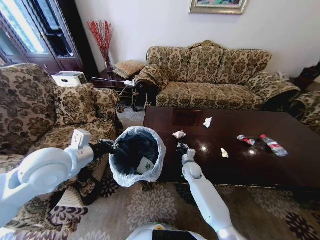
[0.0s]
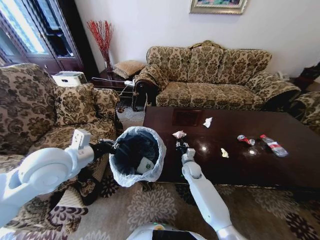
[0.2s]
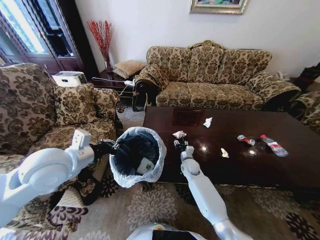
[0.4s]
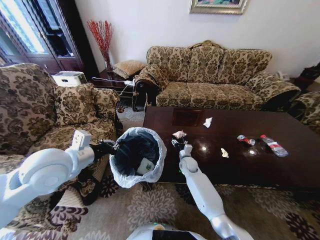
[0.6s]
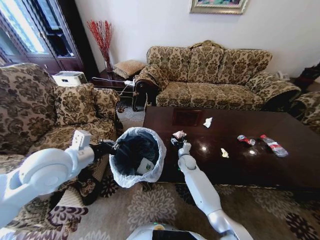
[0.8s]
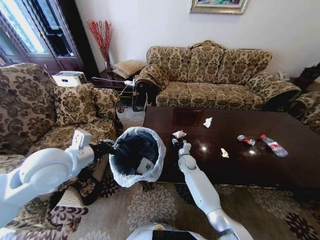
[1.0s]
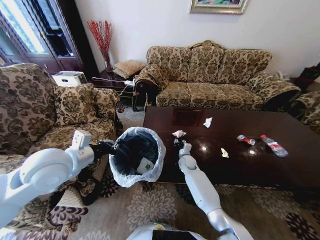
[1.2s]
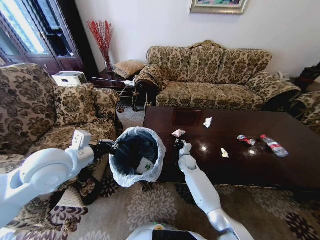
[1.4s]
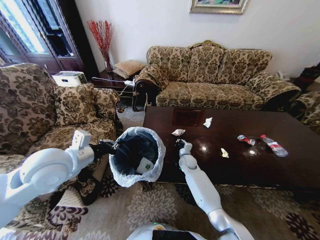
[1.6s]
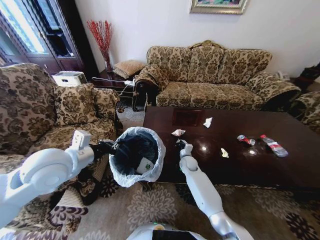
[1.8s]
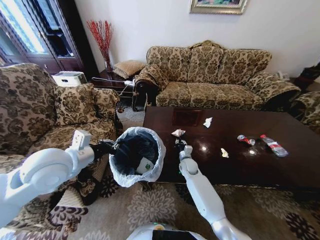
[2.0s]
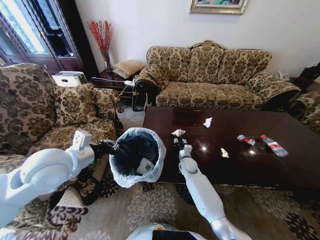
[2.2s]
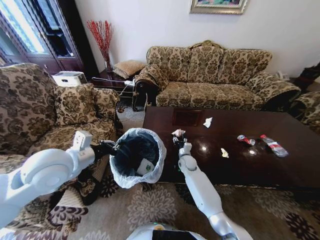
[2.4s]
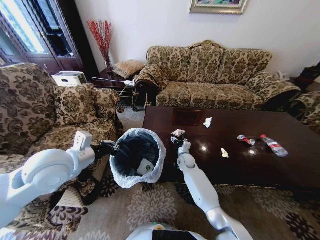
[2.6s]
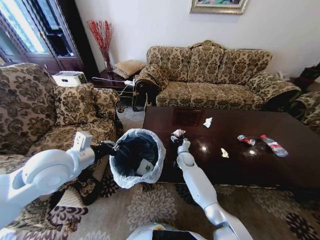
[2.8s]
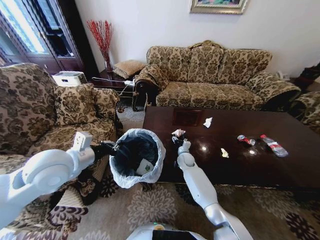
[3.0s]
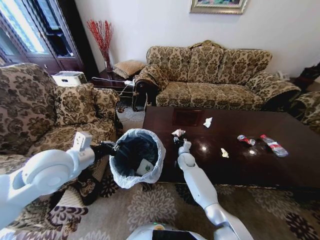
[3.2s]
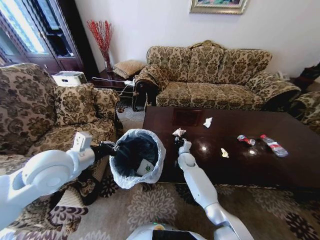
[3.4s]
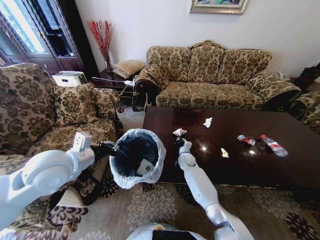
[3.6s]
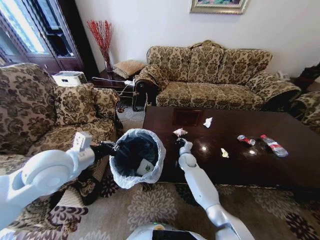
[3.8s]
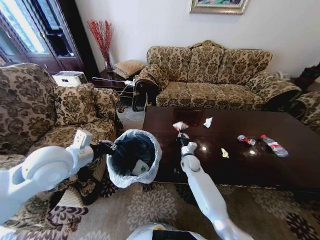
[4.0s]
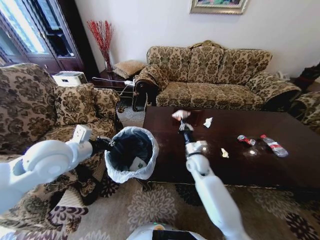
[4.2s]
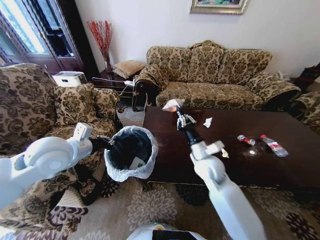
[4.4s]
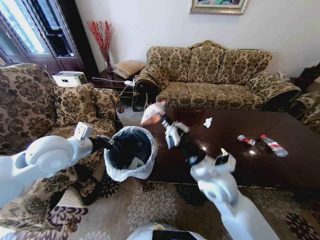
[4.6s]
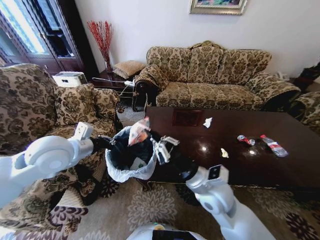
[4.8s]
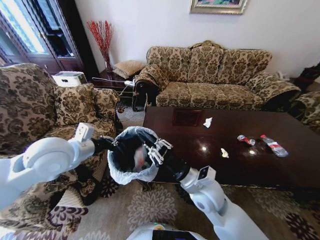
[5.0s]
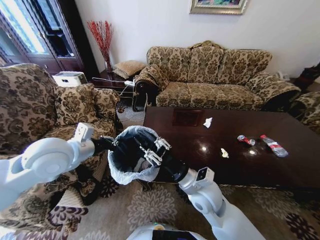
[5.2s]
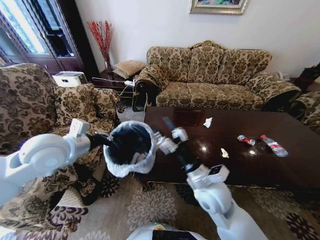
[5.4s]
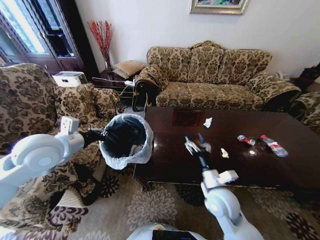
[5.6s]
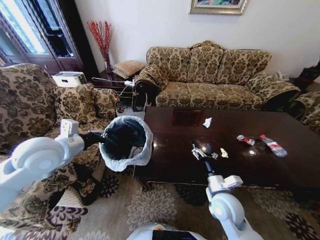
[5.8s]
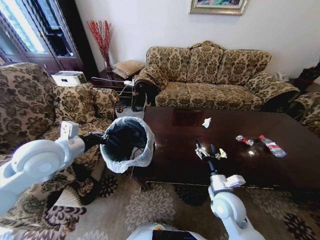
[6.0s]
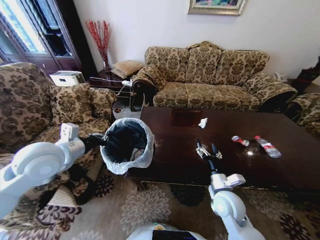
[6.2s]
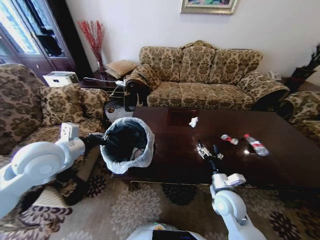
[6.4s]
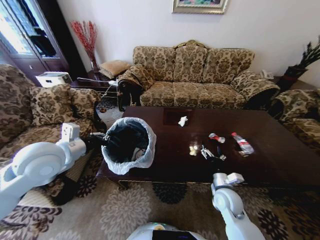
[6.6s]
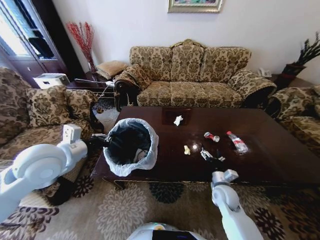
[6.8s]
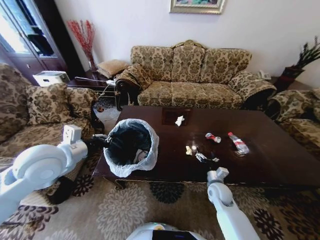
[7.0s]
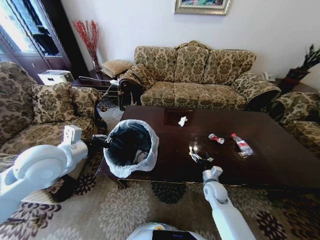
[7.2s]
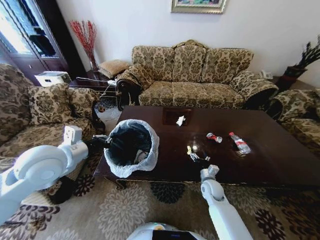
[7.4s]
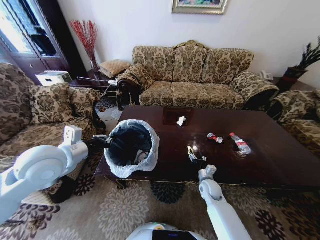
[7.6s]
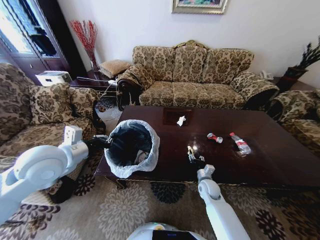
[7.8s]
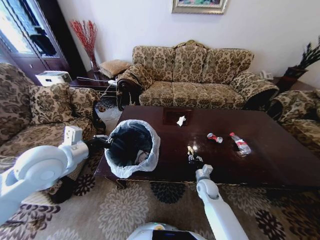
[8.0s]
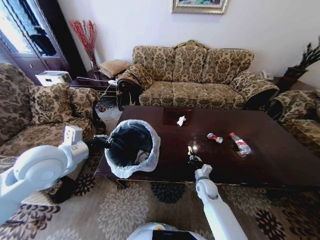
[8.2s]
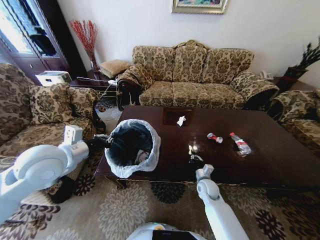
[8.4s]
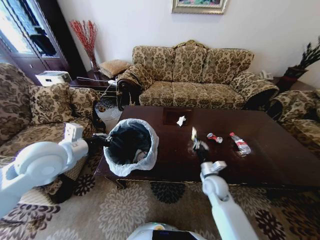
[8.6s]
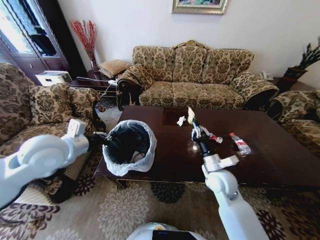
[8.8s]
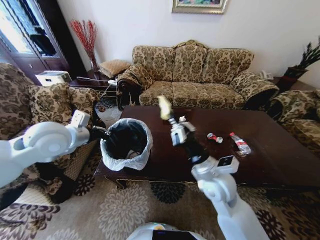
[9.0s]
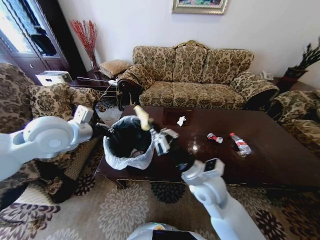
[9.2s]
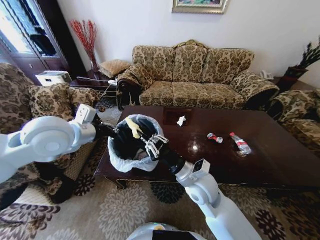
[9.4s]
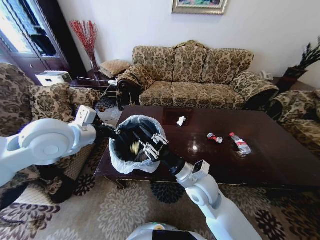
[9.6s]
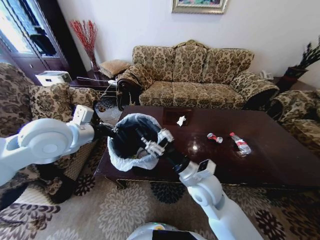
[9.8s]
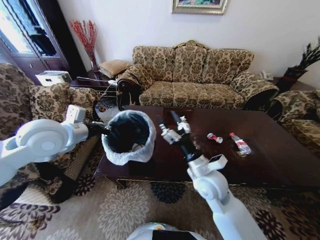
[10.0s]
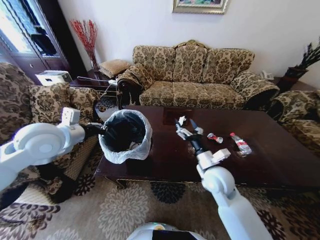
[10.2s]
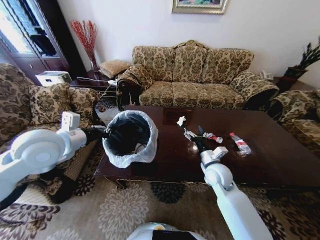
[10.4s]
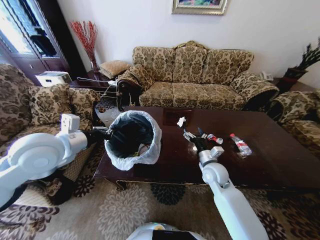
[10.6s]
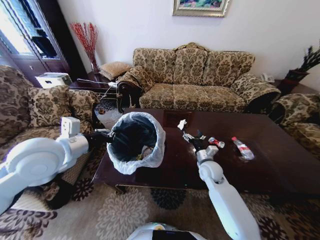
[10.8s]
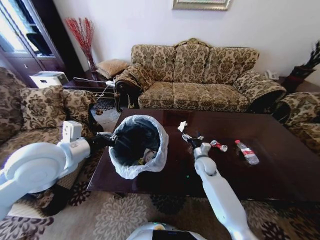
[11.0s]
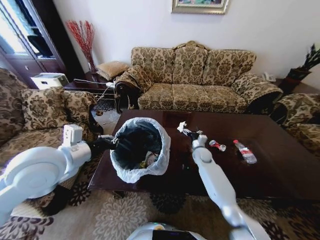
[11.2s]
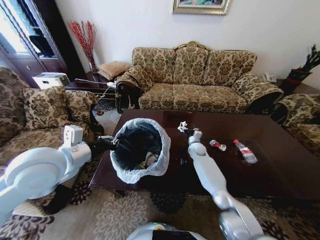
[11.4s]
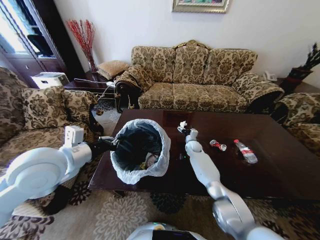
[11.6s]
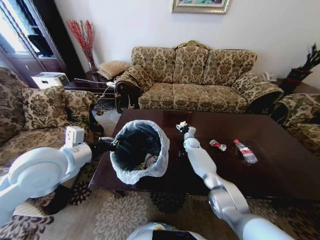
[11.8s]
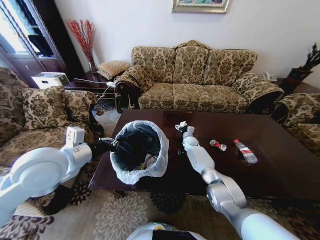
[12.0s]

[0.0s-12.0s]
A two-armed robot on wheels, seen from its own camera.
Task of the whole recording: Move to the front of the table and place the trash on the table into the trash bin.
0.0s to 1.6s: The right gripper shifts by approximately 5 cm, and opens, then closes once more.
1.6s to 3.0s: The right gripper opens up.
3.0s to 4.4s: The right gripper travels upward and backward by approximately 25 cm, and closes up.
4.4s to 6.0s: The right gripper shifts roughly 15 cm downward, backward and to the right, and opens its fingers.
6.0s to 7.6s: The right gripper moves downward and forward, about 15 cm.
7.6s to 9.0s: The left gripper goes about 5 cm forward. The right gripper travels upward by roughly 25 cm, and closes.
9.0s to 10.4s: The right gripper is displaced downward, forward and to the right by roughly 10 cm, and opens up.
10.4s to 12.0s: The left gripper changes place by approximately 5 cm. The right gripper shifts approximately 30 cm forward and downward.

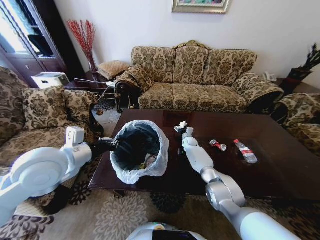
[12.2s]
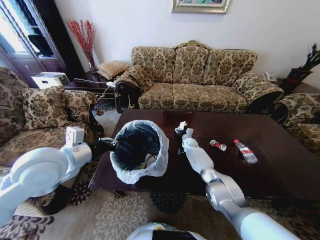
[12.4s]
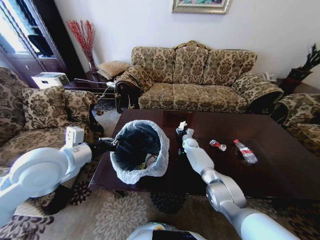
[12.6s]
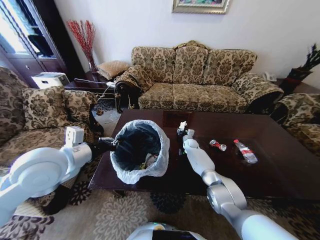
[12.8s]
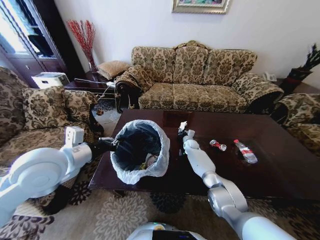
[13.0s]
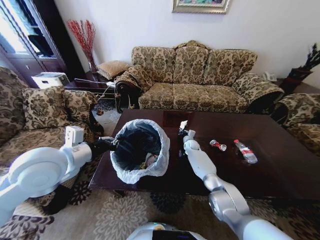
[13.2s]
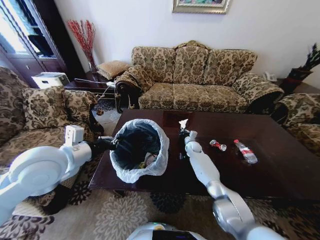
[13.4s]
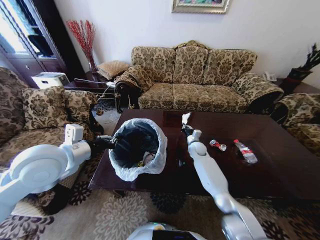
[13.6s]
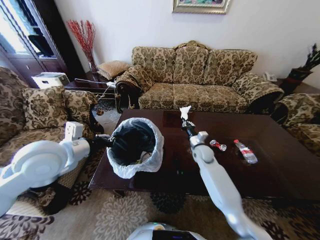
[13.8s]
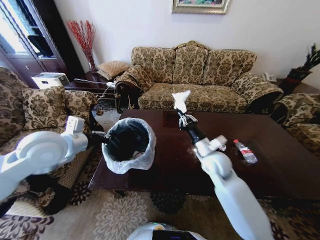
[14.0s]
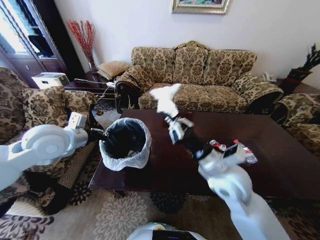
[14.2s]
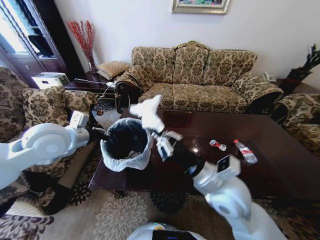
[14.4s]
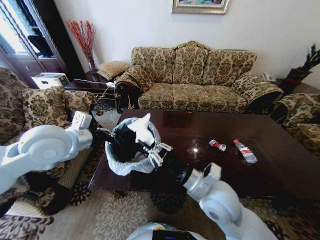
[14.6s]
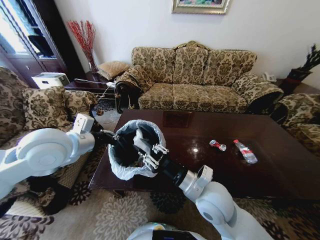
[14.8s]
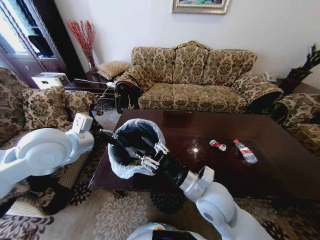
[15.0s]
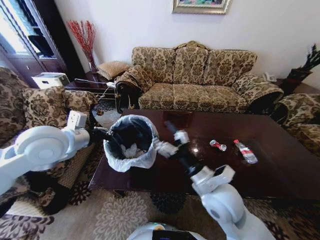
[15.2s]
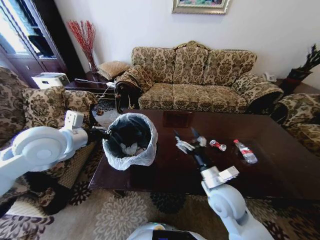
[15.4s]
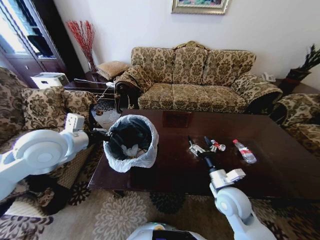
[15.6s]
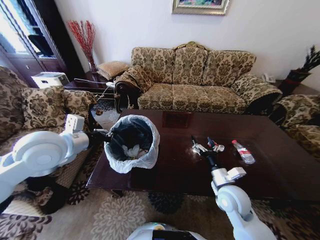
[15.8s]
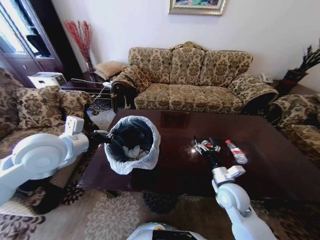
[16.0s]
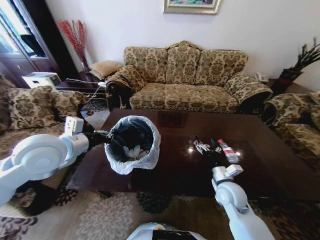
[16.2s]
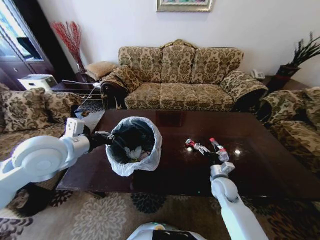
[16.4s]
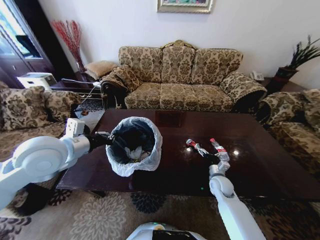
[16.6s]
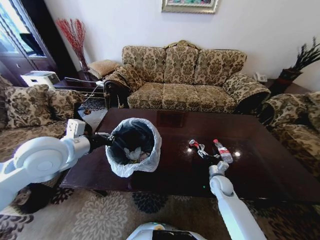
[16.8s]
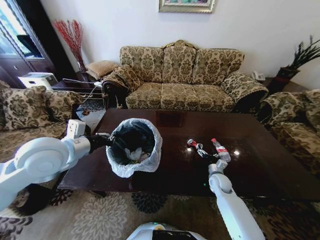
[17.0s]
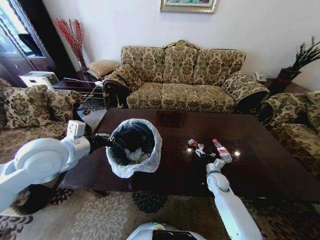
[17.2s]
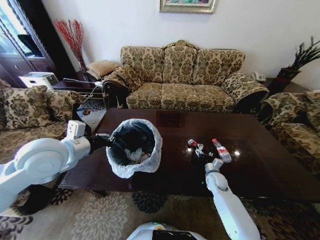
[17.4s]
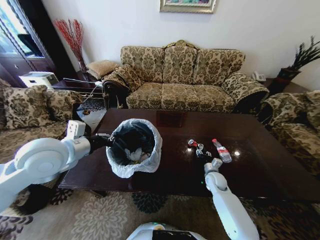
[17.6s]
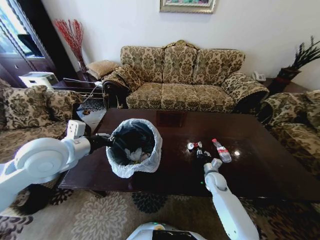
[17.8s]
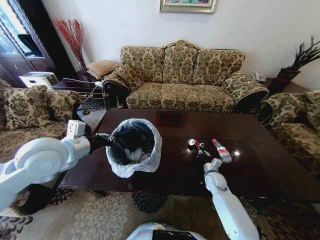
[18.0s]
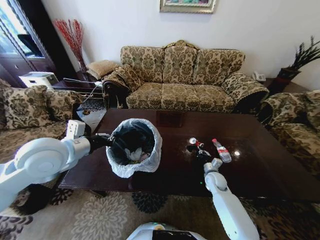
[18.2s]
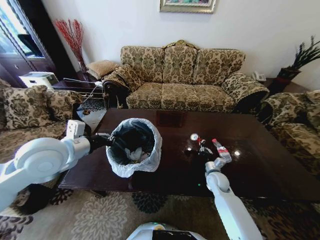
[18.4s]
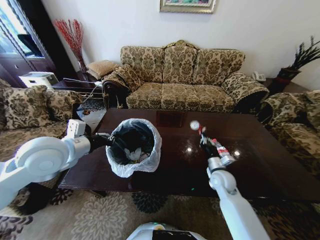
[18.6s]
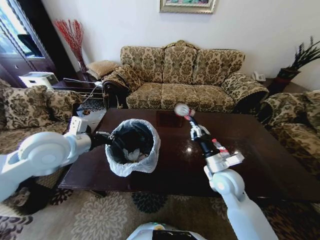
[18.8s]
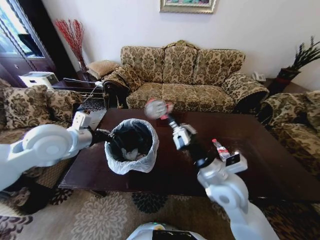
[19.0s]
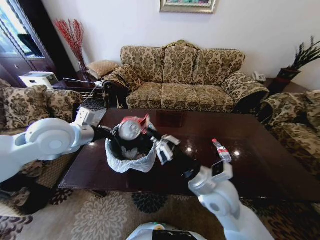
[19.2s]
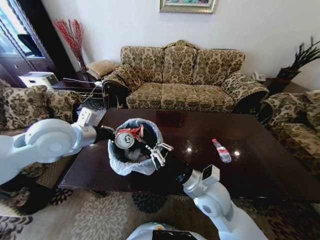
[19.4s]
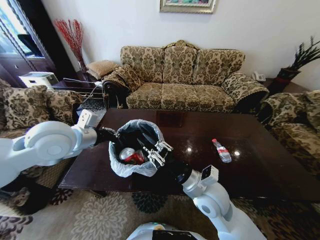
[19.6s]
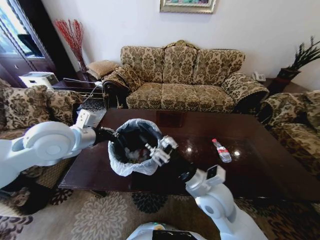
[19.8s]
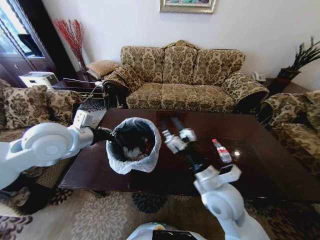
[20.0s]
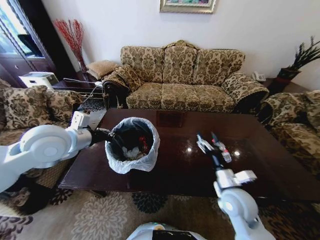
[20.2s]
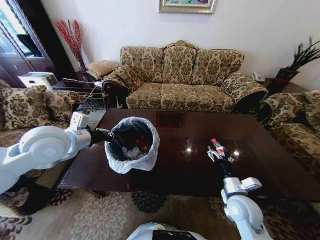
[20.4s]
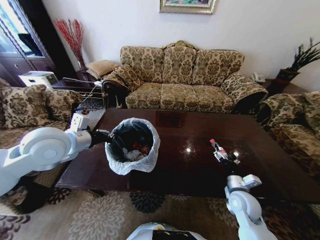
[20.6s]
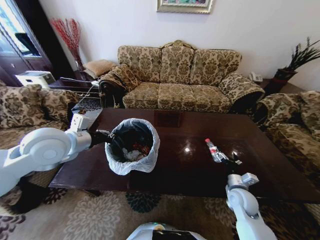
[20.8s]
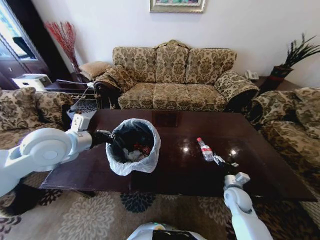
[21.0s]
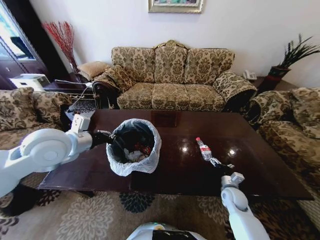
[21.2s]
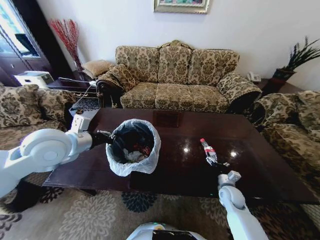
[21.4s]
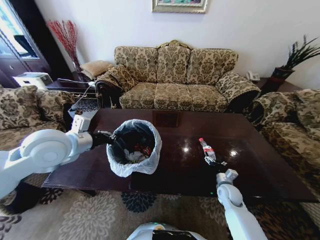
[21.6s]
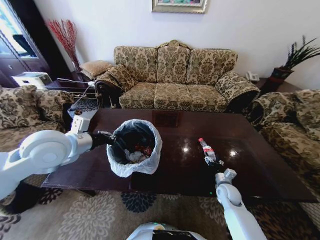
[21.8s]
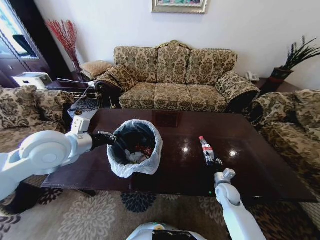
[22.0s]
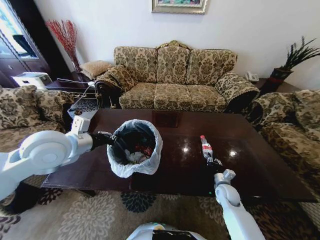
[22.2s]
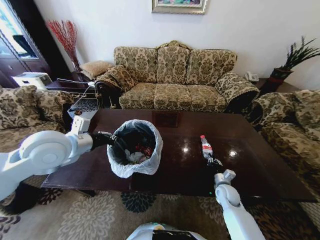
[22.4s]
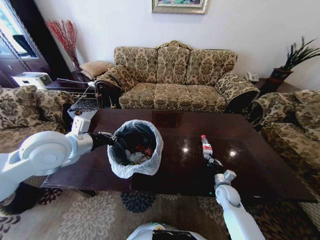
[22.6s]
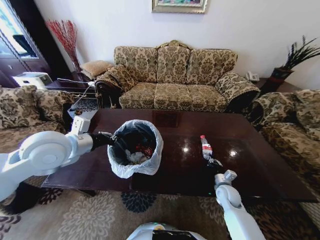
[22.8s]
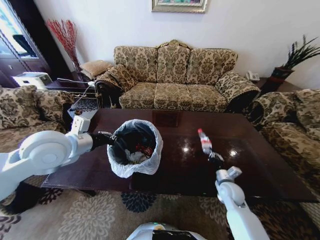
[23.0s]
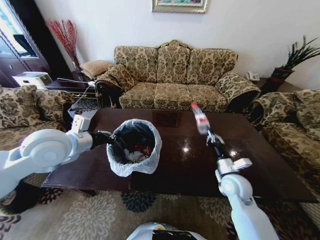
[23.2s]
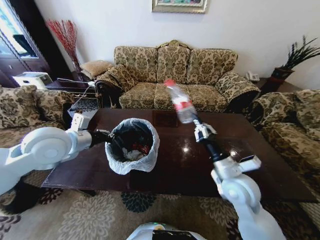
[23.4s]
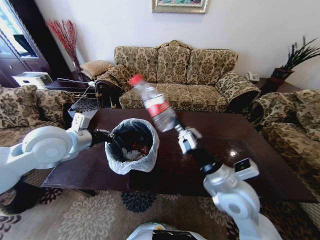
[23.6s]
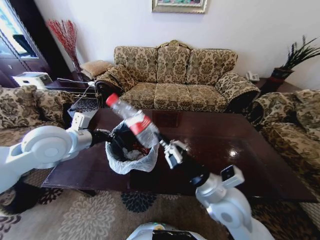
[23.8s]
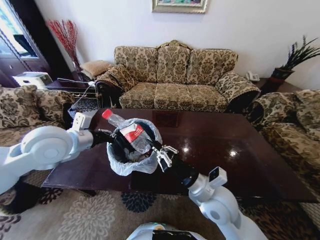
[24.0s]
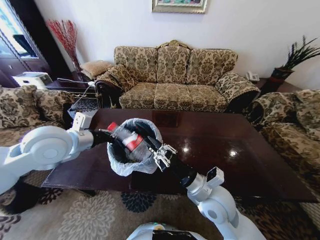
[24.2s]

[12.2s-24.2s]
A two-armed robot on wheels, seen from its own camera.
Task of the whole recording: Move to the front of the table and place the trash on the table into the trash bin.
12.2s to 13.8s: The right gripper goes roughly 20 cm backward and upward, and closes.
13.8s to 15.2s: The right gripper shifts about 25 cm backward and upward, and opens.
15.2s to 16.6s: The right gripper goes roughly 30 cm downward, to the right and forward.
16.6s to 18.2s: The right gripper closes its fingers.
18.2s to 19.8s: The right gripper is displaced upward, backward and to the left by some 30 cm, and opens.
19.8s to 21.2s: The right gripper goes about 30 cm downward and to the right, and opens up.
21.2s to 22.6s: The right gripper closes its fingers.
22.6s to 24.2s: The right gripper heads upward and to the left, covering roughly 25 cm.
